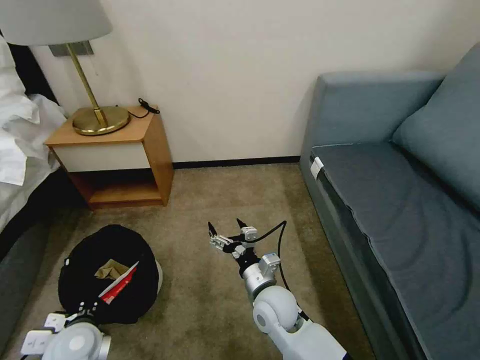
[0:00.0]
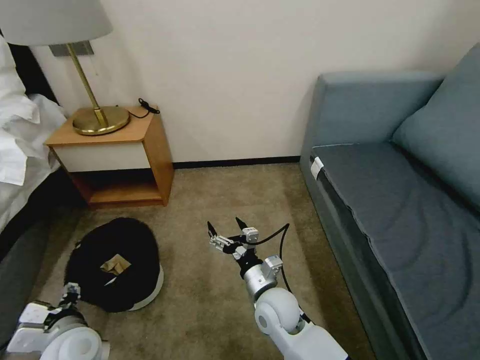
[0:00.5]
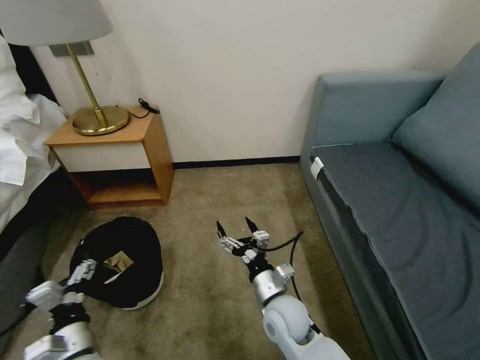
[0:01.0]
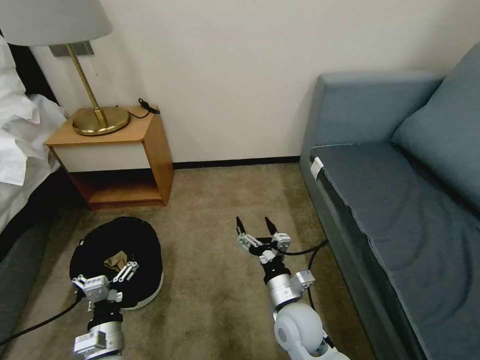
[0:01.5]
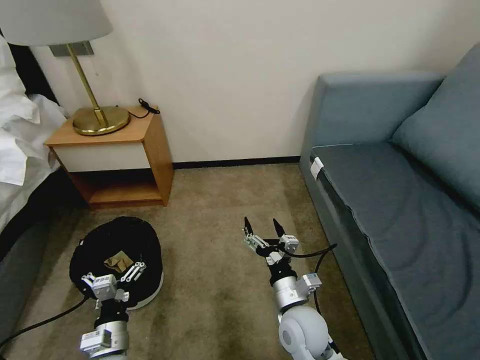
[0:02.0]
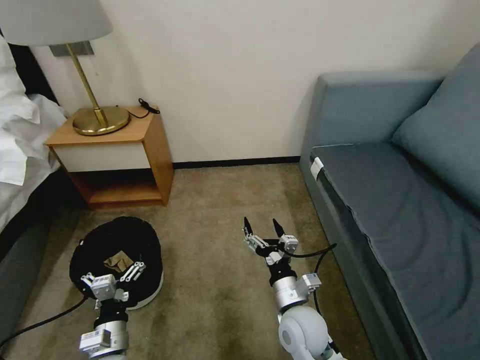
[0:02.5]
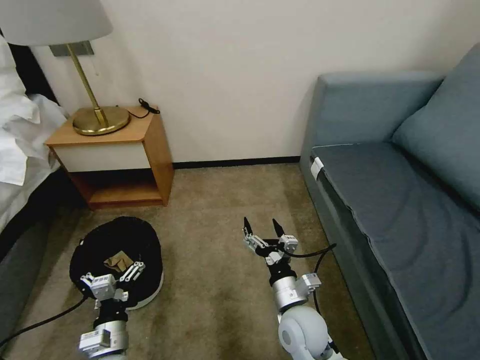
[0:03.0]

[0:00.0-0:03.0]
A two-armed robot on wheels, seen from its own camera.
Task of the whole recording: Pick up the trash bin, then pick up the garbage on the floor and place it into the trash bin.
0:00.0 to 0:01.5: The left gripper moves downward, about 5 cm, and opens its fingers, while the right gripper shifts by approximately 5 cm.
0:01.5 to 0:03.0: Neither gripper changes place.
